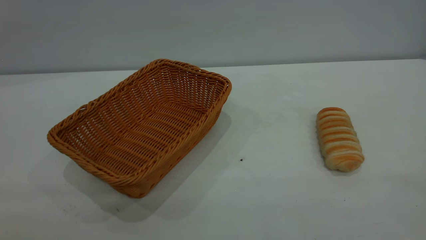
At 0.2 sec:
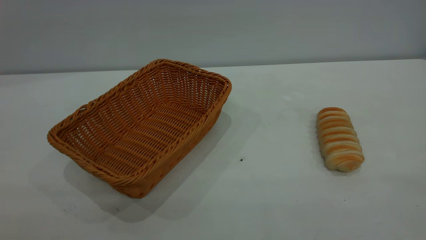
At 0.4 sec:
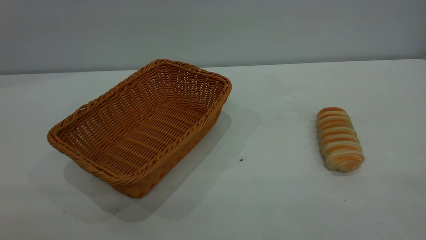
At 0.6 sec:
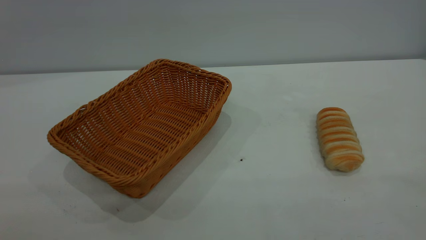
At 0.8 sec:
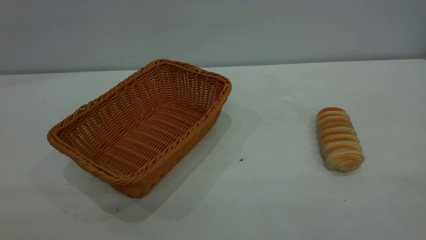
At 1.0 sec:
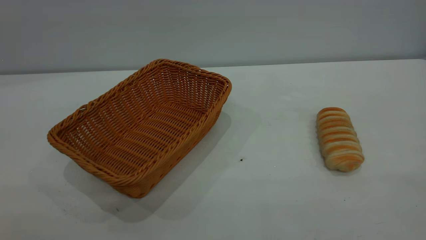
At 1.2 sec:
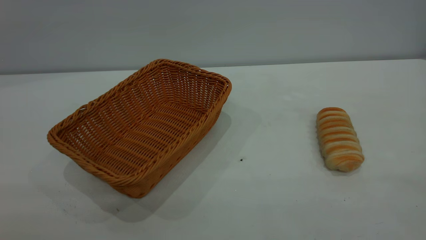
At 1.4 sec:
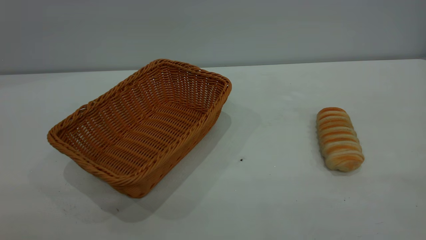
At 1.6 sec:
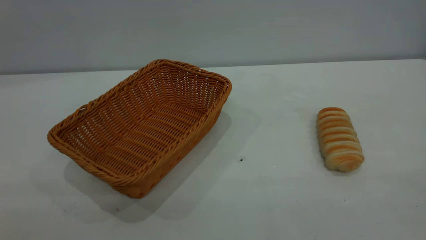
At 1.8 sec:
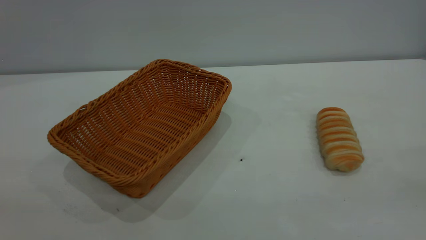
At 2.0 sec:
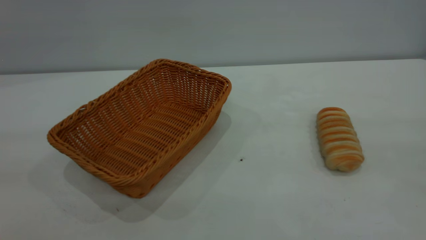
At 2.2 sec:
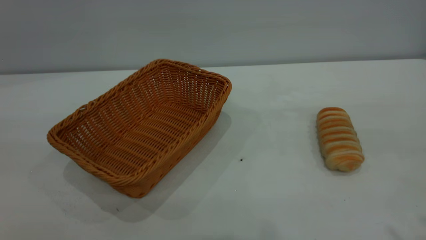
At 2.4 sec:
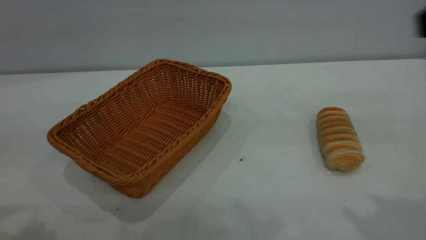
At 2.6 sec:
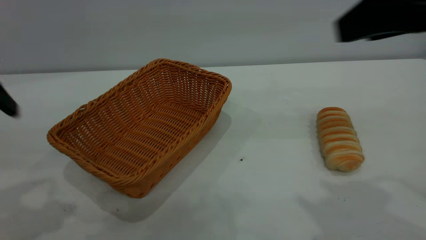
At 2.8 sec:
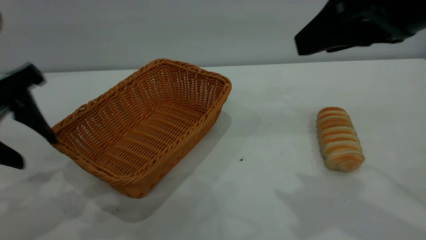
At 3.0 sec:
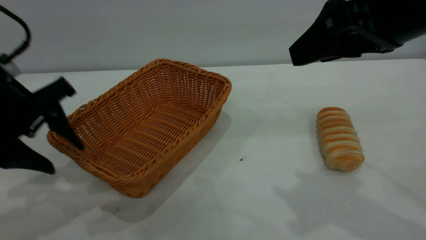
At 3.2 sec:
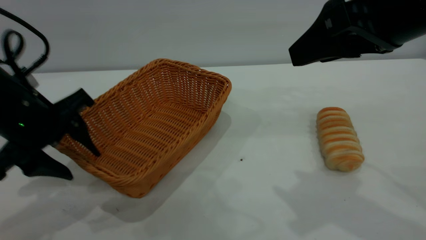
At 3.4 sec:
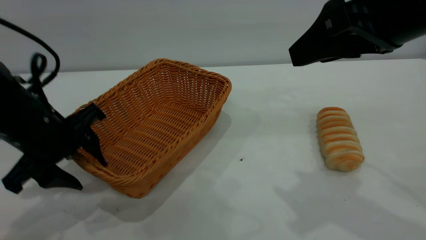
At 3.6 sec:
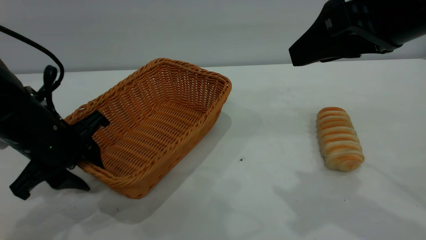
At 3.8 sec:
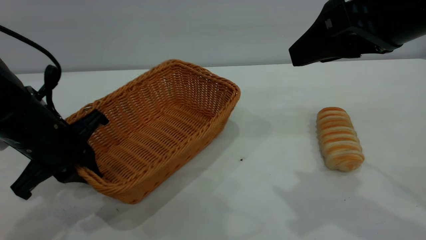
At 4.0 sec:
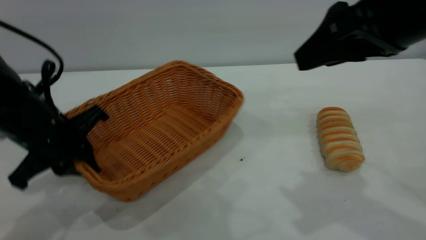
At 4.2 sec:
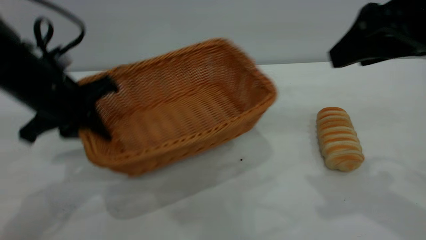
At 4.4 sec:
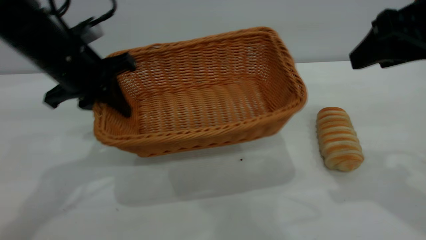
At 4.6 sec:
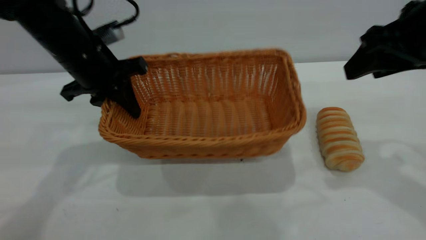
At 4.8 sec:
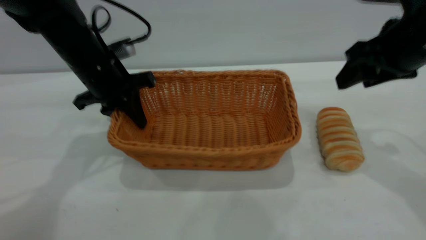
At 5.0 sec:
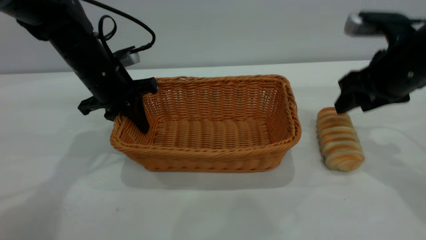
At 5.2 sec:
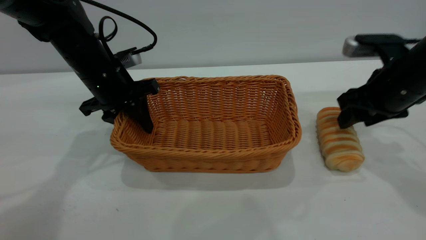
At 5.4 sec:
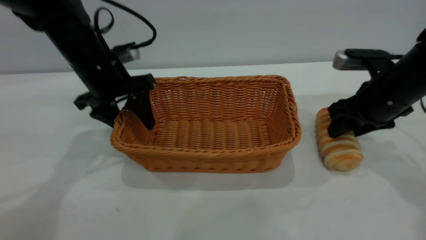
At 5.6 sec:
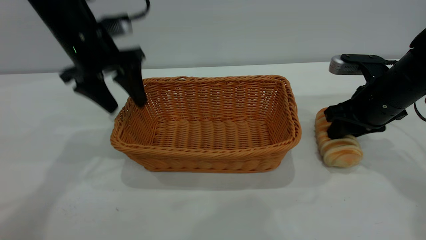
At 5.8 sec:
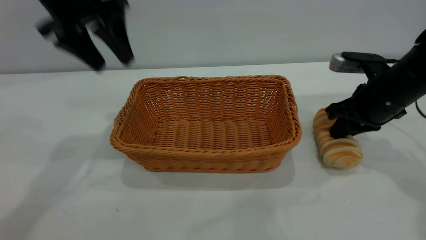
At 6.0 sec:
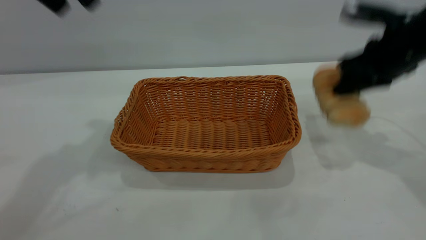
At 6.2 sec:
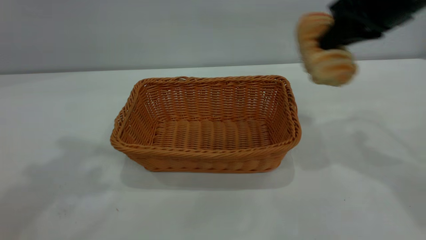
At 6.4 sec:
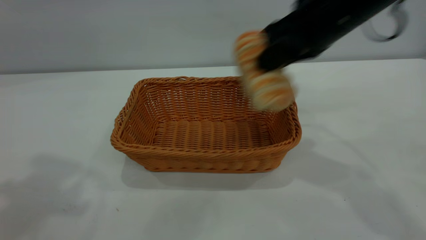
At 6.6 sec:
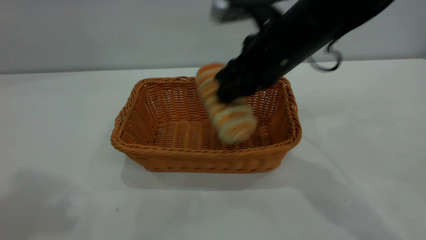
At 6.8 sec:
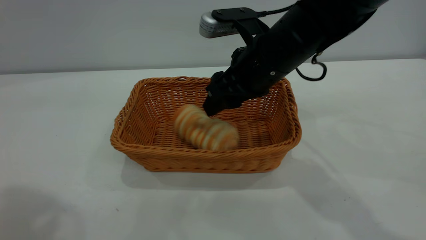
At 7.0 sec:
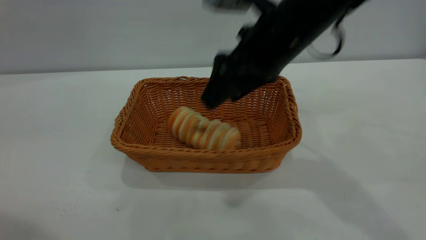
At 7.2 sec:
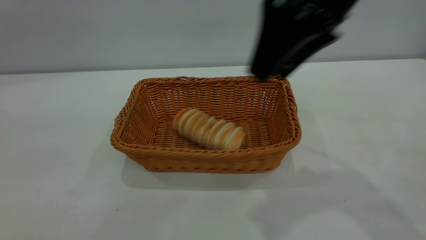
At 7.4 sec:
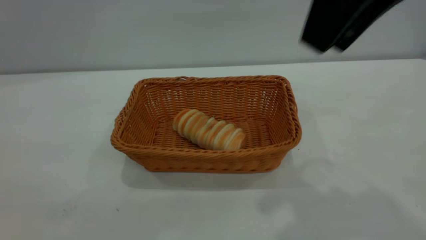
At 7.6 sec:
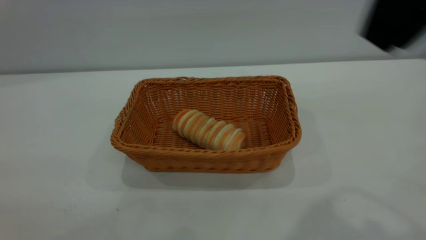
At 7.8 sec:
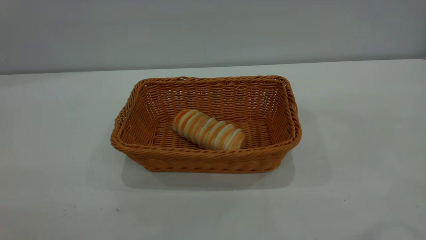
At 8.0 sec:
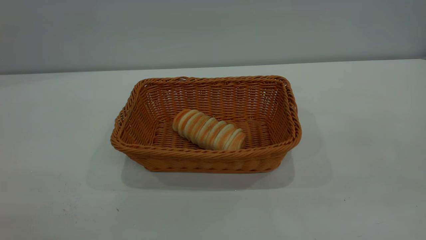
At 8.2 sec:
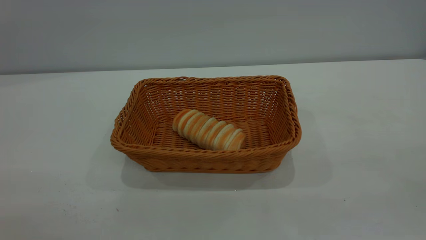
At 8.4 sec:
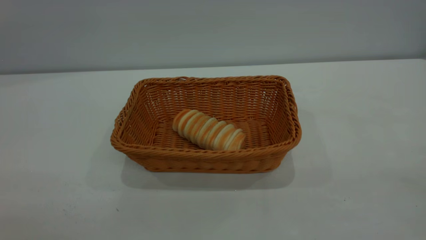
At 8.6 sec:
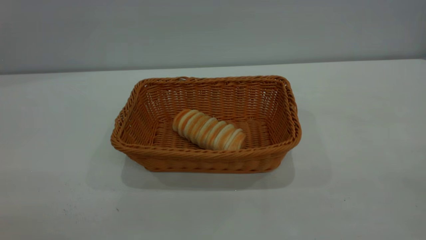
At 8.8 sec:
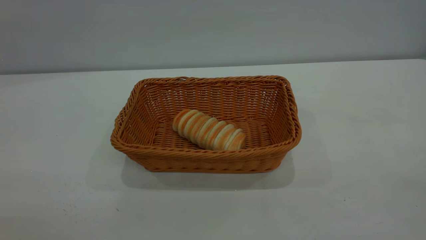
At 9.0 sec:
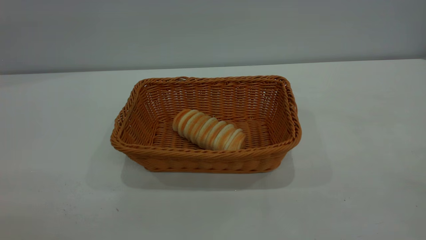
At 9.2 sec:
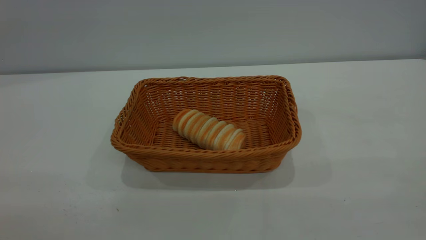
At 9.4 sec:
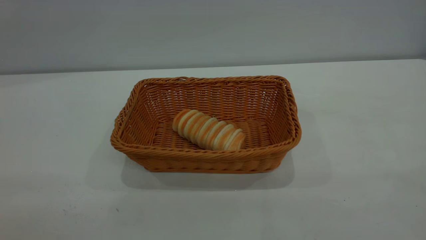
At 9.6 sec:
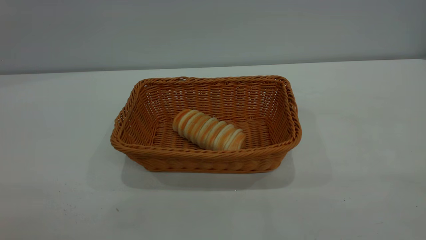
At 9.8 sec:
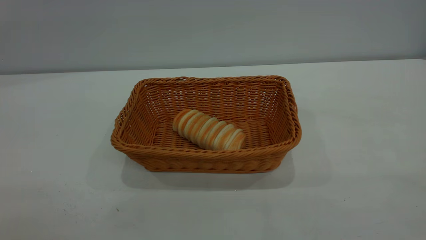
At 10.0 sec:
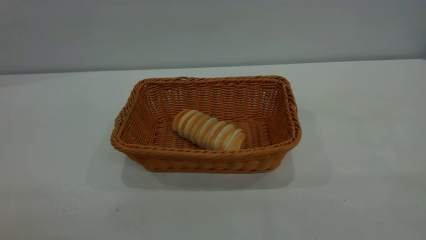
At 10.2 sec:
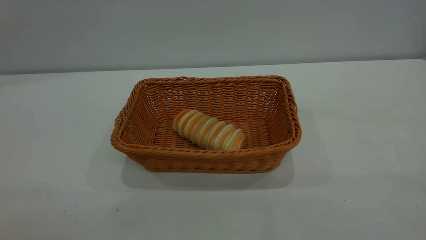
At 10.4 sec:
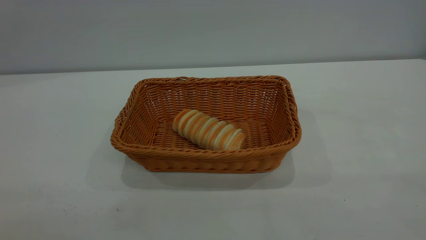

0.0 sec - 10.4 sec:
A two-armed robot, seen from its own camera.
Task of the whole recording: One hand grasps the yellow basket and places it in the middle of the table, while the other hand picks up the long bread and puts it into the yellow basket.
Step, 0.0 sec - 5.6 sec: Move the basket to the center of view.
Step, 6.2 sec - 7.2 sec: place the bread into the basket.
0.0 sec - 1.4 sec: Both grippers stay about where they are.
1.4 sec - 3.0 sec: The left gripper travels forward and downward by approximately 35 cm. The right gripper travels forward by approximately 25 cm.
3.0 sec - 4.4 sec: The left gripper is displaced forward by about 10 cm, and closes up. Meanwhile the right gripper moves to the right, roughly 5 cm.
4.4 sec - 6.0 sec: The left gripper travels upward by about 20 cm, and opens up. Meanwhile the right gripper is displaced forward by about 10 cm, moves roughly 15 cm downward and comes back, and closes its fingers.
6.0 sec - 7.4 sec: The right gripper moves up and down over approximately 20 cm, changing direction 2 times, and opens up, while the left gripper travels backward by approximately 30 cm.
7.4 sec - 9.0 sec: The right gripper shifts some 25 cm backward and to the right.
